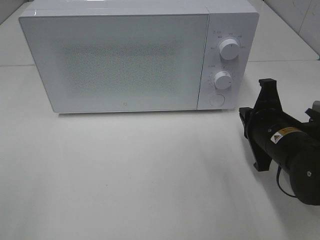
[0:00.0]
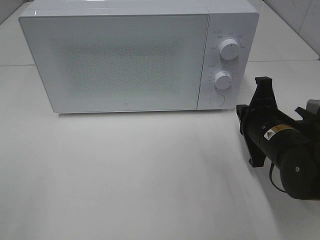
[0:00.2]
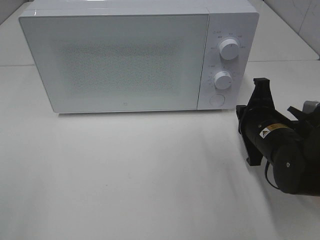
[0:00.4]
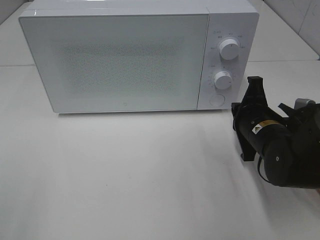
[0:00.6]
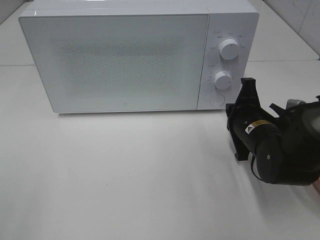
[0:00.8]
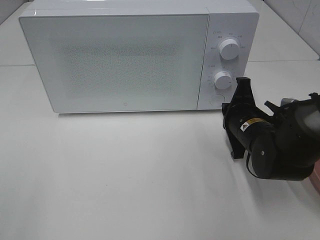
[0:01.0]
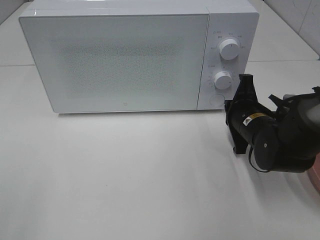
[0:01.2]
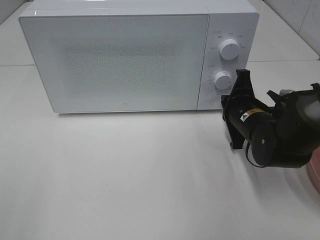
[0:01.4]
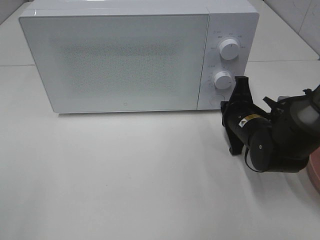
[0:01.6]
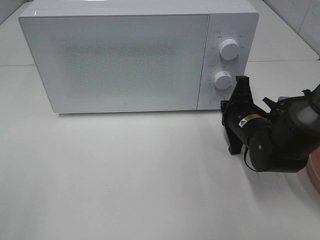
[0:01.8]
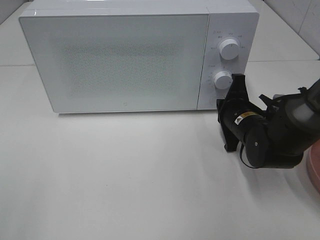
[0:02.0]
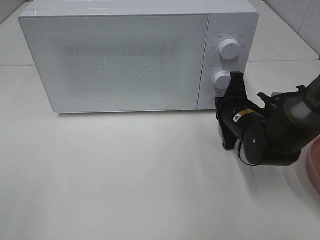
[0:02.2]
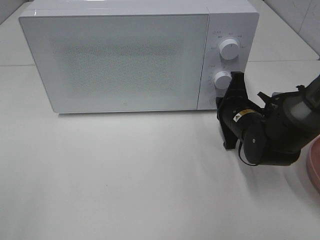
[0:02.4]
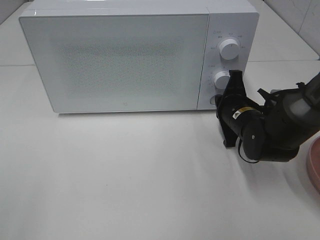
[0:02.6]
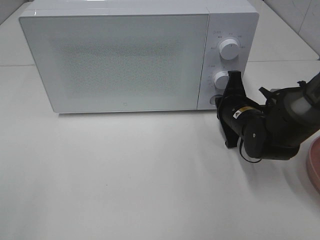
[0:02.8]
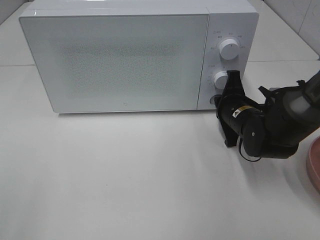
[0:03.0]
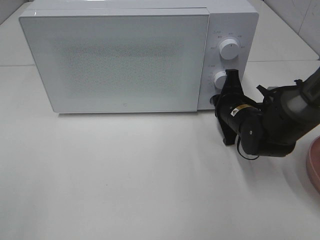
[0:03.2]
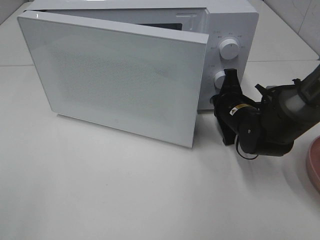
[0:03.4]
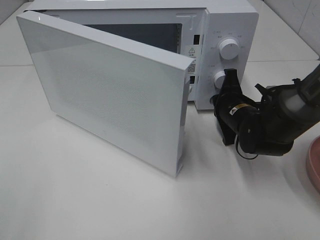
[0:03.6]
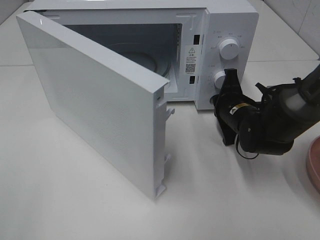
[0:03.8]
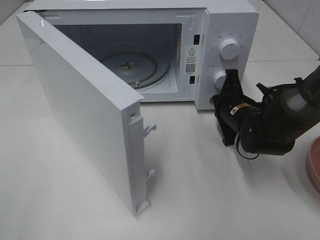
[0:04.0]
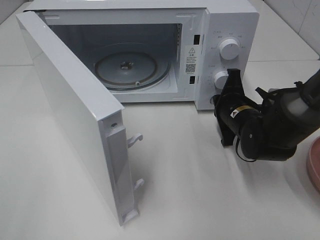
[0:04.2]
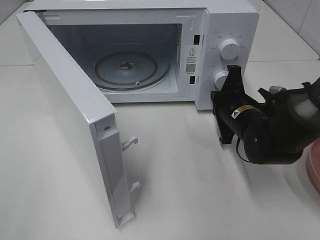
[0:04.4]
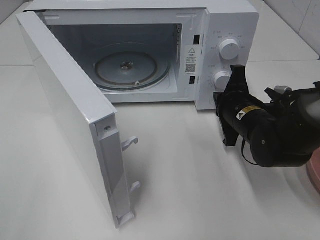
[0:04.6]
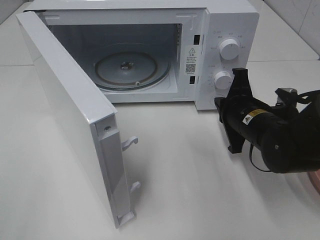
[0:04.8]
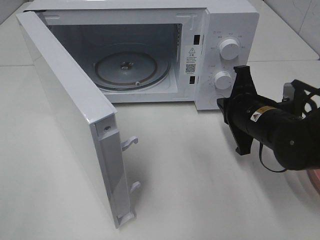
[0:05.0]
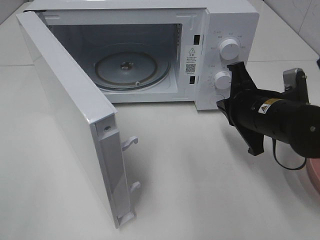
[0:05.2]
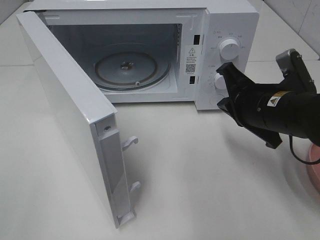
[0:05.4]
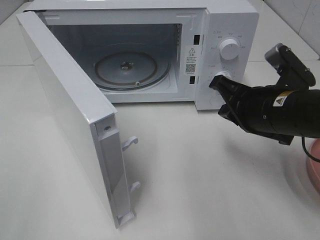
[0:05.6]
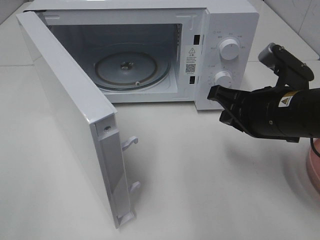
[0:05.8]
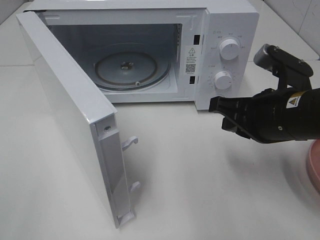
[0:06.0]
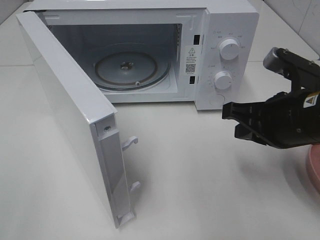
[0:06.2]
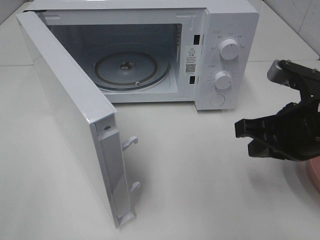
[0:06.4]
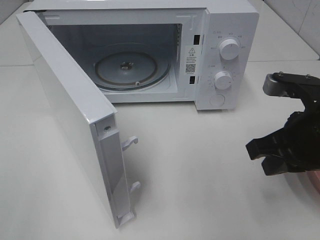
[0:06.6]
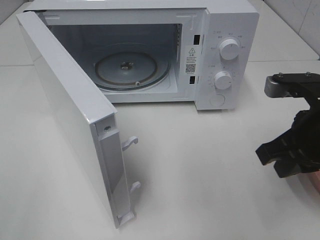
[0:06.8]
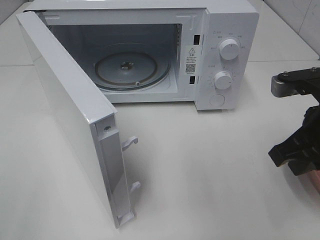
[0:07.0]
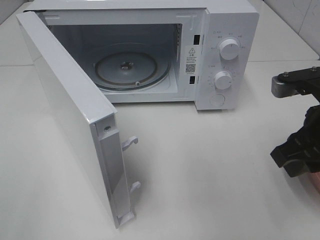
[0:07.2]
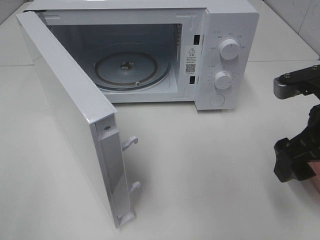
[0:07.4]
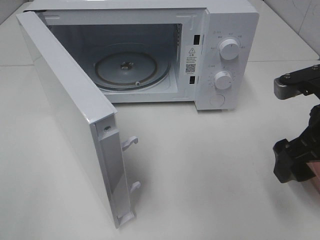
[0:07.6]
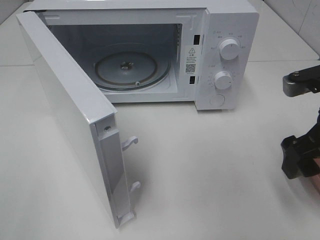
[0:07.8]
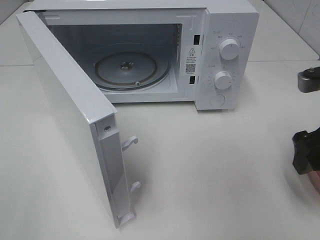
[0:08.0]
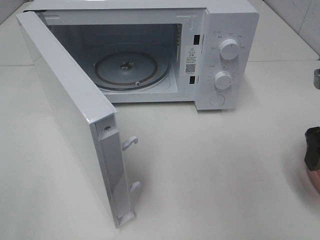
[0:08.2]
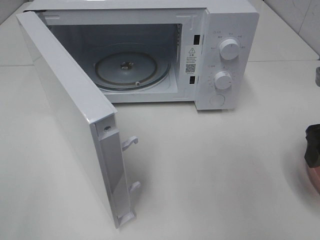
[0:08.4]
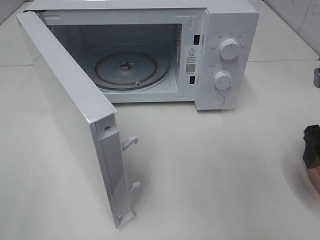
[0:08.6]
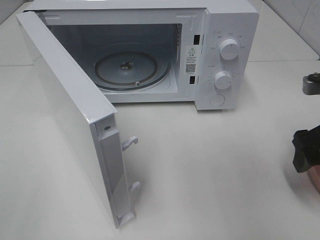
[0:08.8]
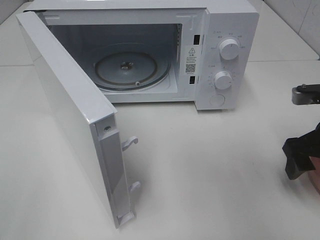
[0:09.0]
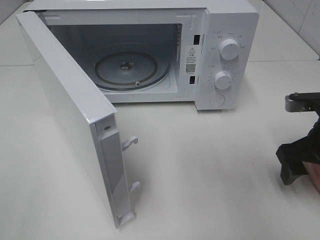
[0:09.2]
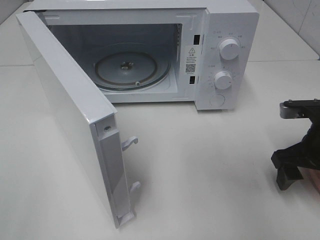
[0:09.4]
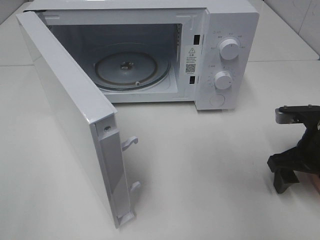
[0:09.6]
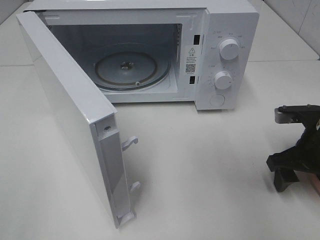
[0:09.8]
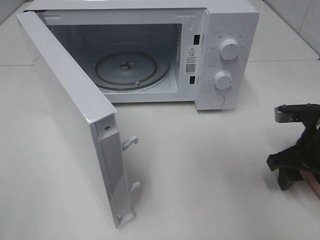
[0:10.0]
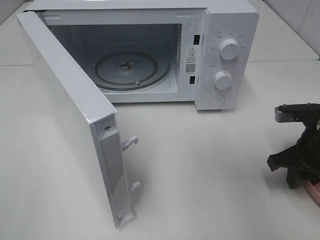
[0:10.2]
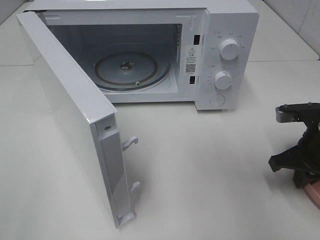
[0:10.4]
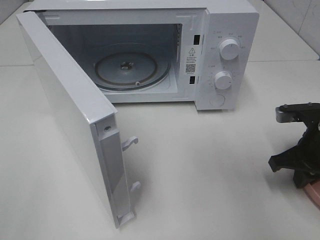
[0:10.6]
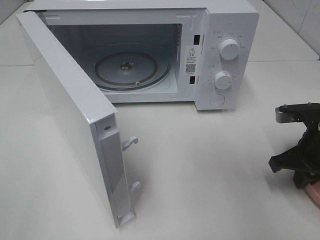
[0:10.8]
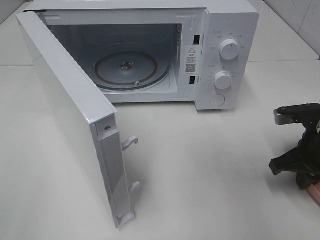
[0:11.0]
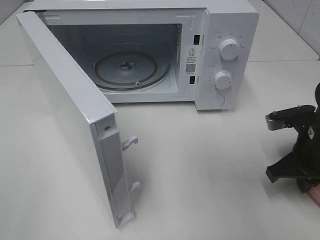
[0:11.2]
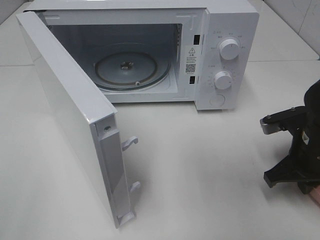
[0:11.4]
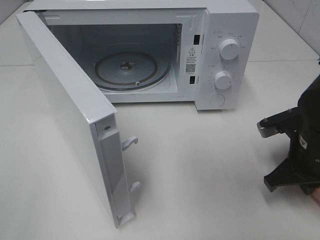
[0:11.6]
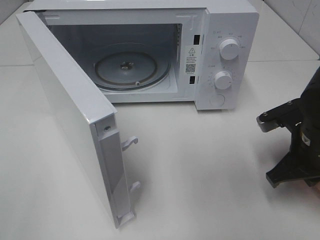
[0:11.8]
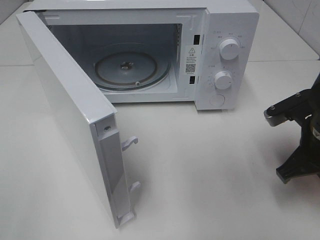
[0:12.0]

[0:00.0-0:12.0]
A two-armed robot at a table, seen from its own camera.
Task of the whole recording: Heat the burger.
Step, 0:00.0 to 0:04.4: Right hand: press the switch.
Step, 0:04.6 to 0:10.4: Right hand: grab the plate with the hamburger.
0:00.0 to 0:01.6: The right gripper shifts some 5 cm forward.
0:01.6 to 0:03.0: The grippers move only a little.
0:04.4 to 0:06.0: The right gripper travels upward and backward by approximately 15 cm.
0:06.0 to 0:07.6: The right gripper goes roughly 5 cm to the right, and opens its fingers.
0:07.6 to 0:09.0: The right gripper changes place by about 5 cm.
0:09.0 to 0:10.4: The right gripper heads downward, covering about 5 cm, and closes up.
0:10.4 to 0:12.0: The right gripper changes place by some 5 cm.

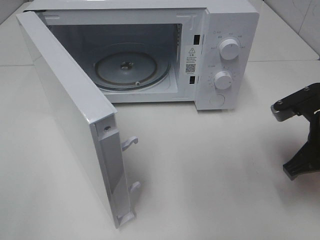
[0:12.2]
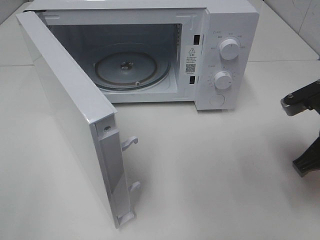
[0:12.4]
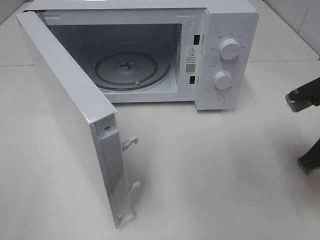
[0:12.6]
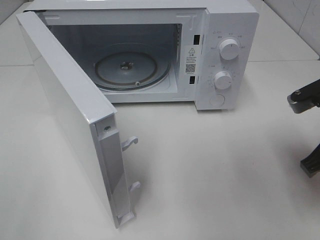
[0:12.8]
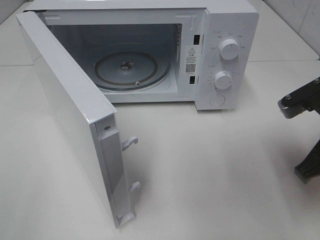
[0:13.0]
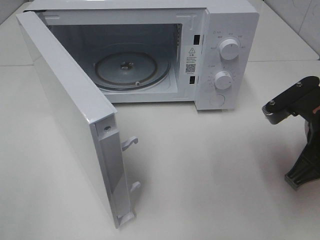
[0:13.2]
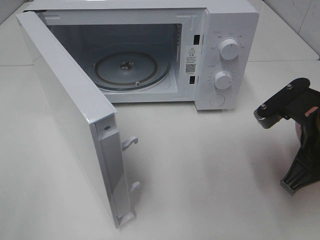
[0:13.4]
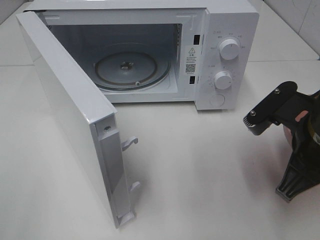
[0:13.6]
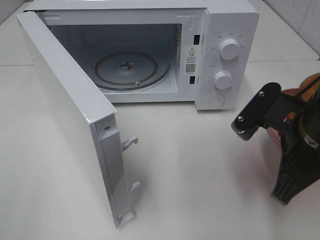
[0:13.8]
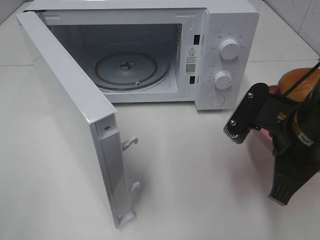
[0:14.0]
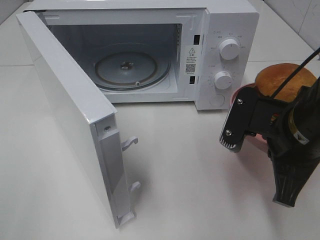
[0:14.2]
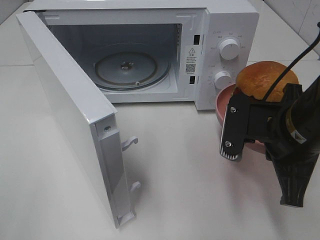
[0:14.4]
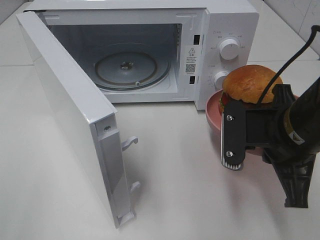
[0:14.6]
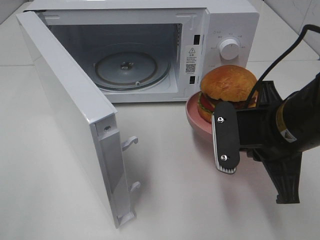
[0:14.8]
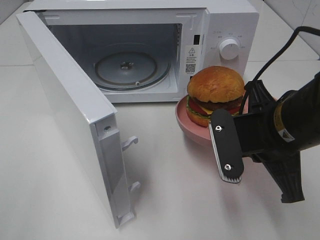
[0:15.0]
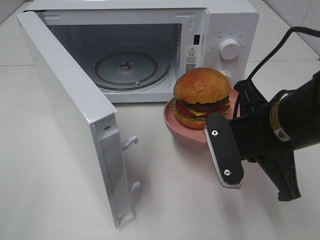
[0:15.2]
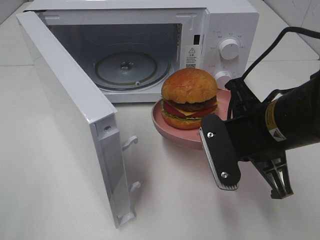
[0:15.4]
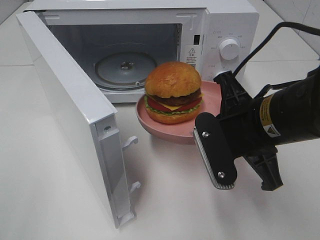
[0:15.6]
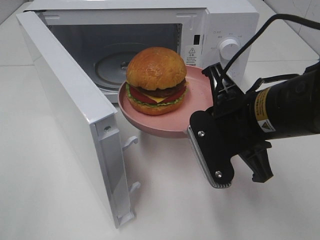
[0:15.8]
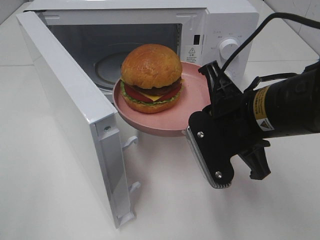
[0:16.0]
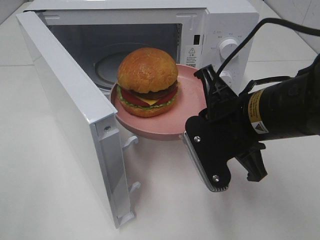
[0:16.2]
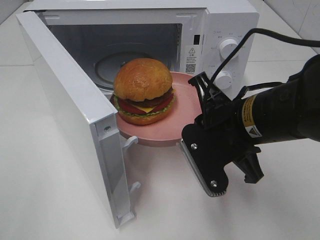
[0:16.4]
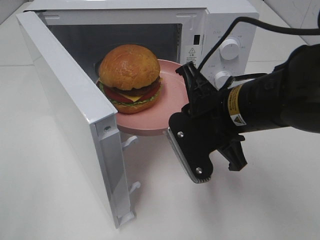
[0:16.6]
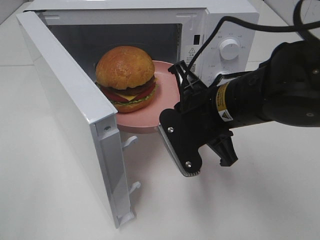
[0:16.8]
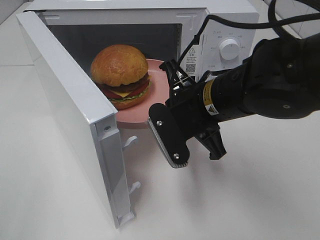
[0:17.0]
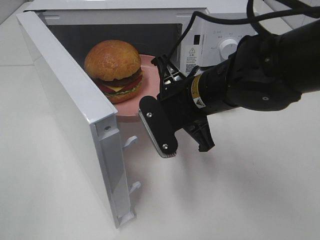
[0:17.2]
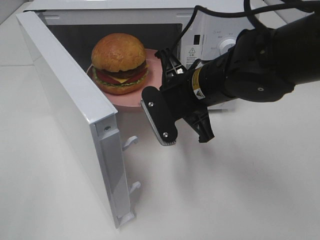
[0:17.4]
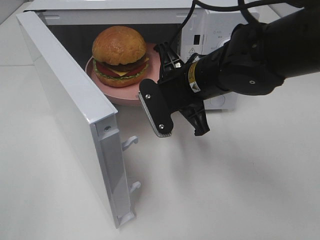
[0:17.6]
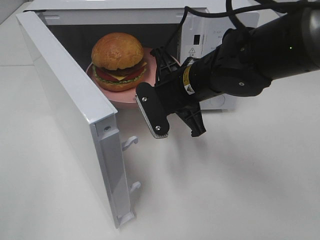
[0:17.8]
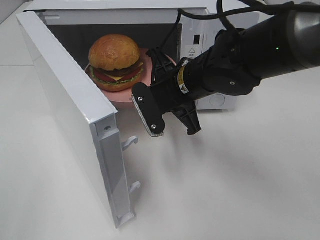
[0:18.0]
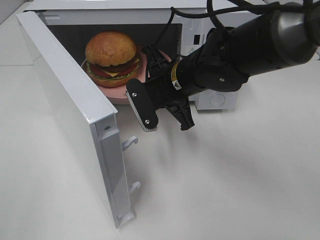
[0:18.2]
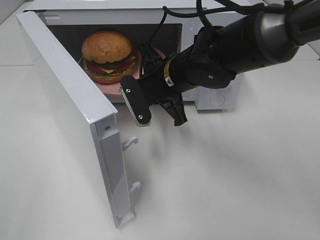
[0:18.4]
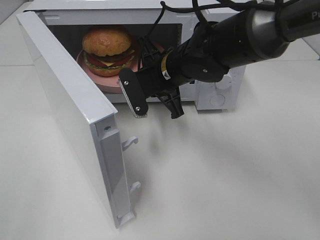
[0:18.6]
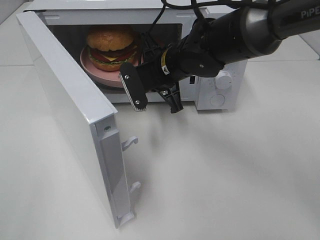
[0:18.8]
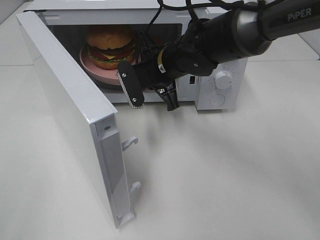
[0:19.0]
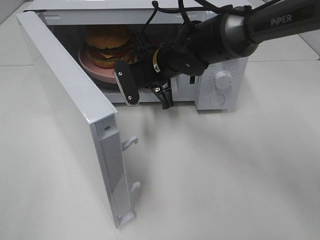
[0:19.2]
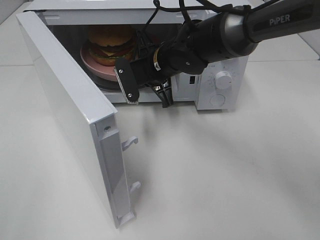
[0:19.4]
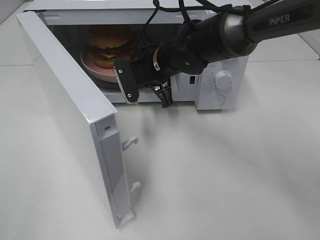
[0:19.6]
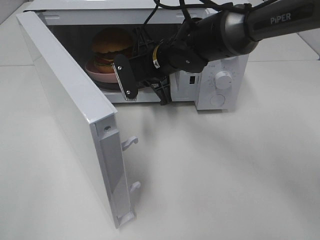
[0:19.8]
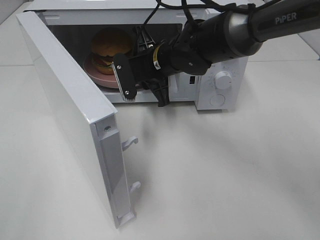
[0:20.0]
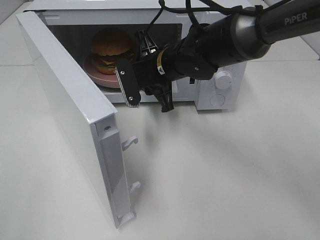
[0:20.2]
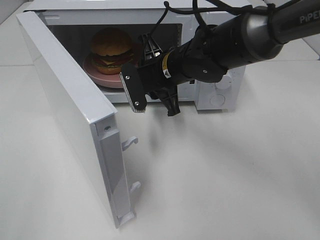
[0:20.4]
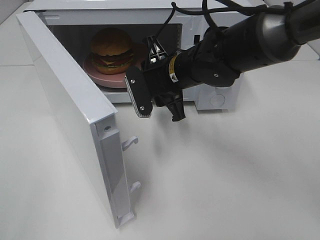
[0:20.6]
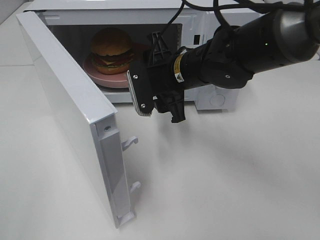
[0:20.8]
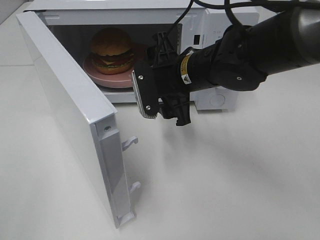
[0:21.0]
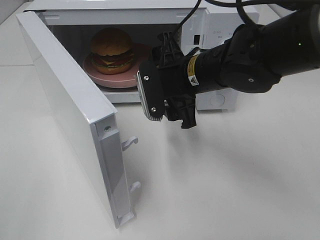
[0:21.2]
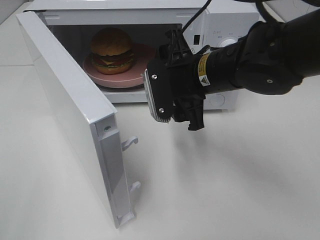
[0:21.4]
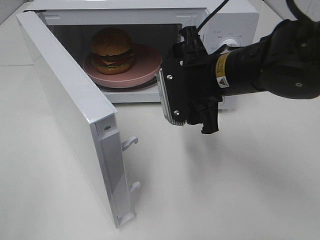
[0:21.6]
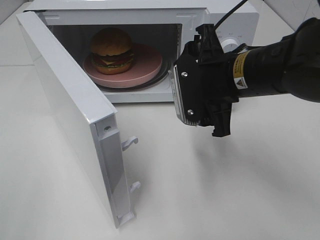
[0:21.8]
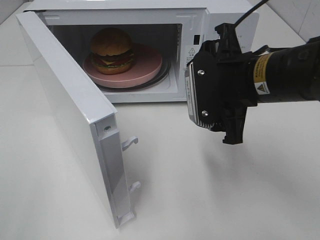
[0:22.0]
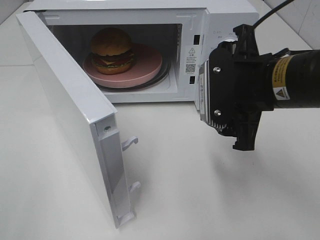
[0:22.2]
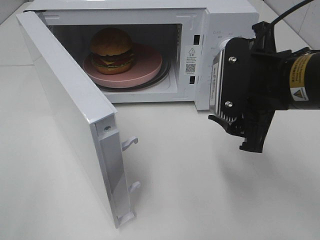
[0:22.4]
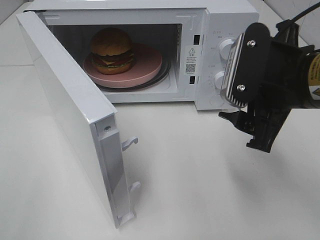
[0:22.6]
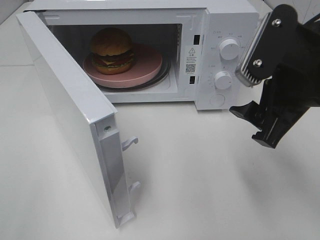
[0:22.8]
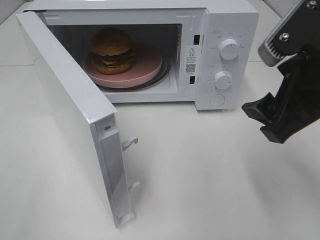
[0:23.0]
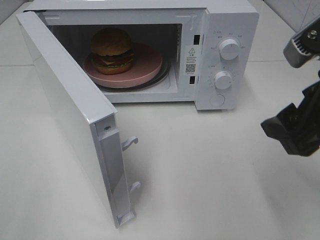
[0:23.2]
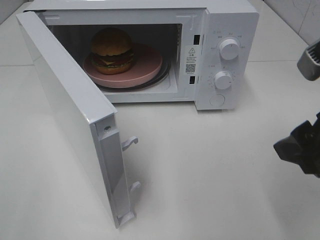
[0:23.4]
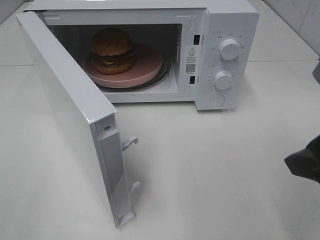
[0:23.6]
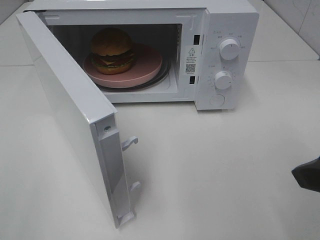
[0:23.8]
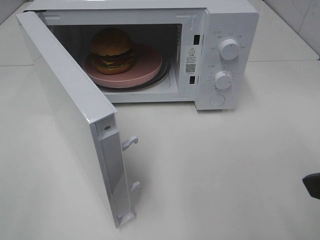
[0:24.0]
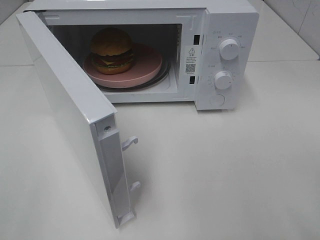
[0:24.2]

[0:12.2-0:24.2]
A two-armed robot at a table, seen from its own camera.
Task of the whole recording: Heat the burger.
Step, 0:12.2 to 0:19.8: Right hand: place the plate in the microwave.
0:12.2 to 0:13.8: The right gripper is displaced to the left by about 5 cm.
0:15.2 to 0:16.6: The right gripper moves approximately 5 cm.
0:16.6 to 0:18.2: The right gripper travels forward and to the left by about 10 cm.
0:18.2 to 0:19.8: The right gripper shifts roughly 5 cm forward.
0:19.8 to 0:21.2: The right gripper heads backward and to the right, covering about 10 cm, and opens up.
0:21.2 to 0:22.6: The right gripper goes some 15 cm backward, to the right and upward.
0:22.6 to 0:24.2: The right gripper moves backward and to the right, some 15 cm.
